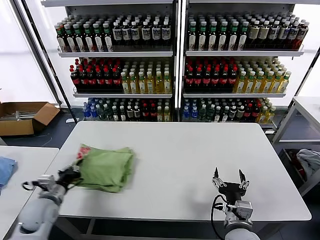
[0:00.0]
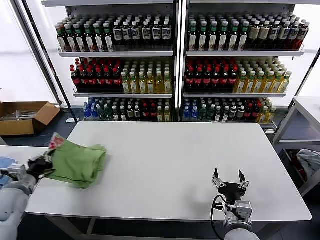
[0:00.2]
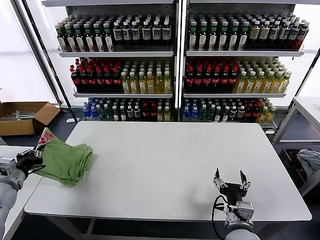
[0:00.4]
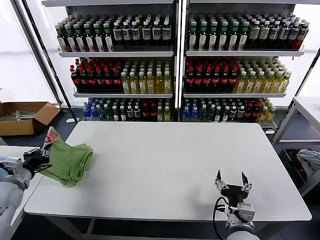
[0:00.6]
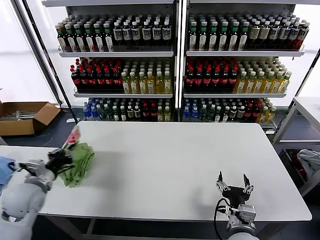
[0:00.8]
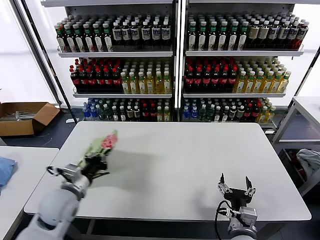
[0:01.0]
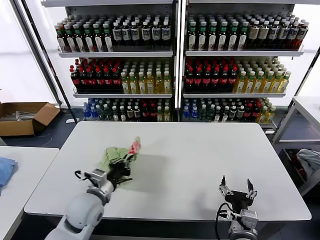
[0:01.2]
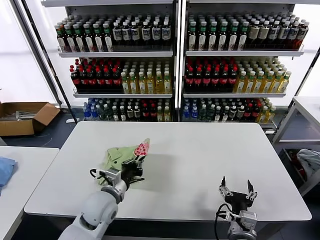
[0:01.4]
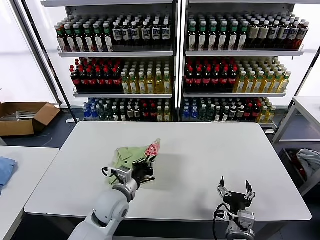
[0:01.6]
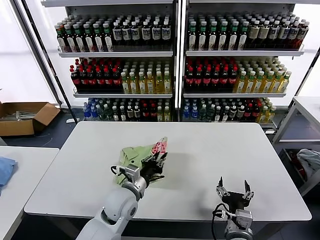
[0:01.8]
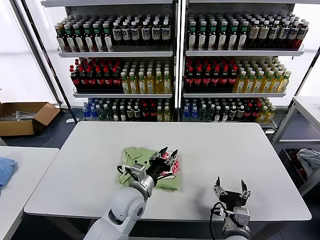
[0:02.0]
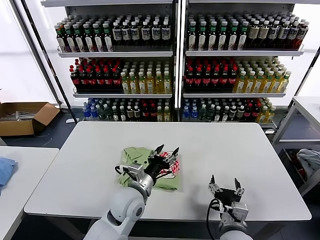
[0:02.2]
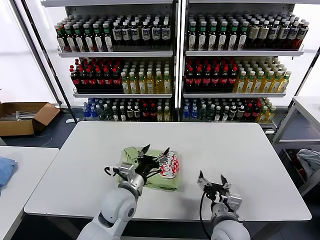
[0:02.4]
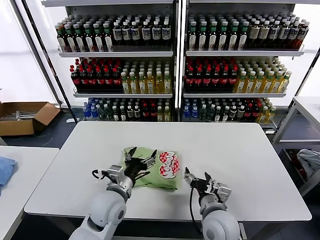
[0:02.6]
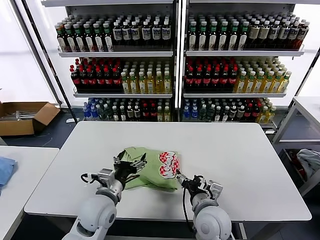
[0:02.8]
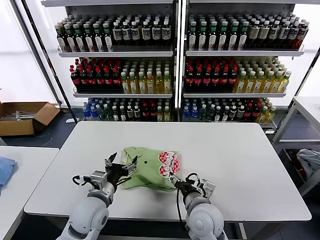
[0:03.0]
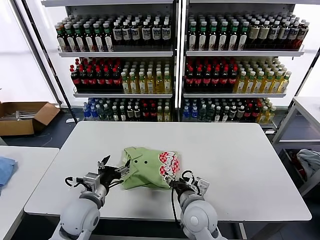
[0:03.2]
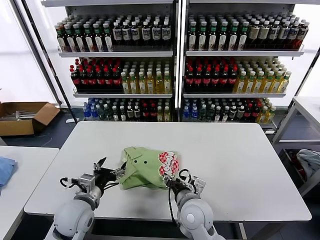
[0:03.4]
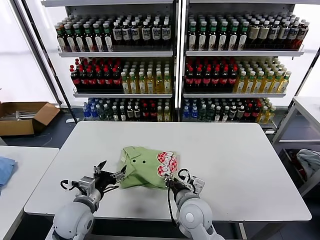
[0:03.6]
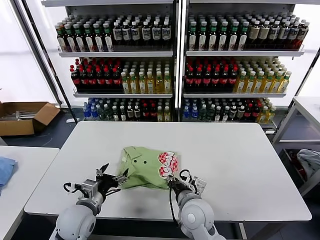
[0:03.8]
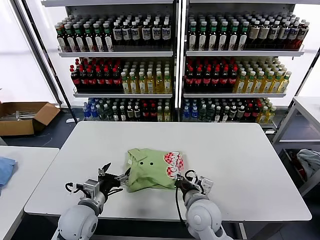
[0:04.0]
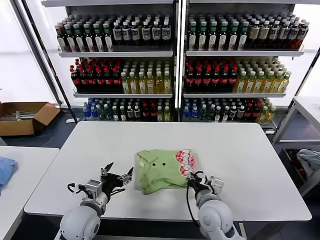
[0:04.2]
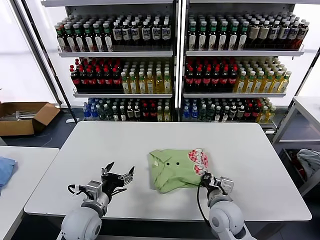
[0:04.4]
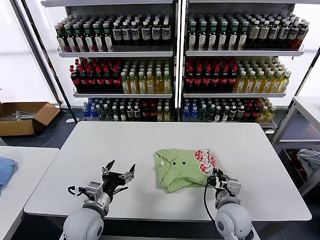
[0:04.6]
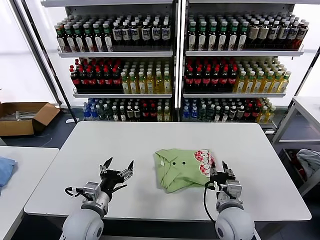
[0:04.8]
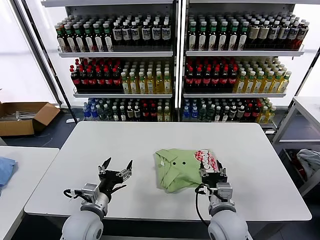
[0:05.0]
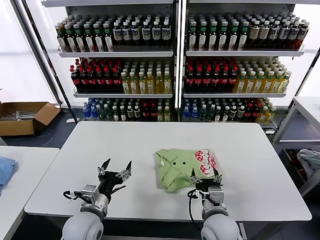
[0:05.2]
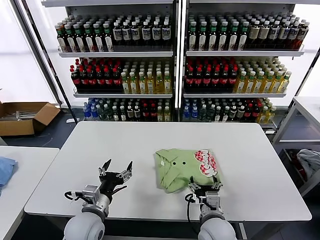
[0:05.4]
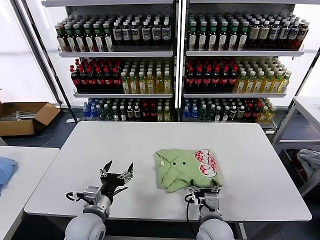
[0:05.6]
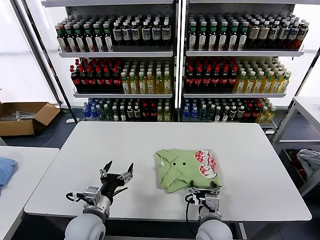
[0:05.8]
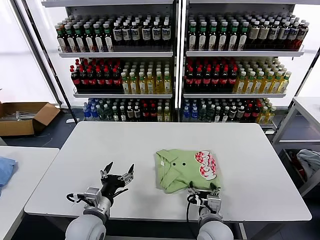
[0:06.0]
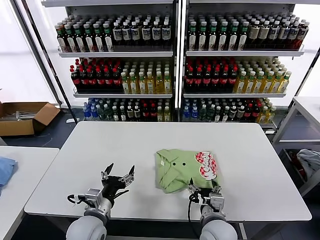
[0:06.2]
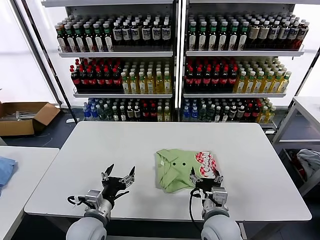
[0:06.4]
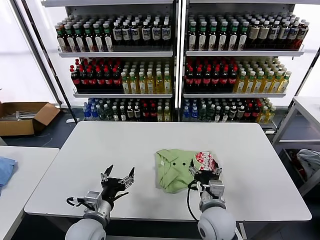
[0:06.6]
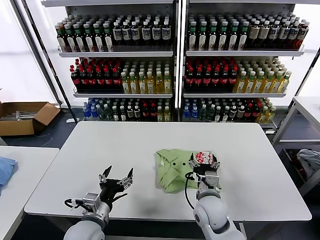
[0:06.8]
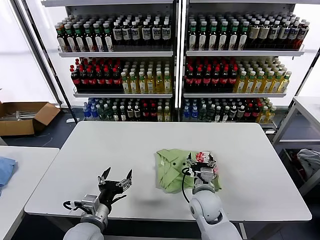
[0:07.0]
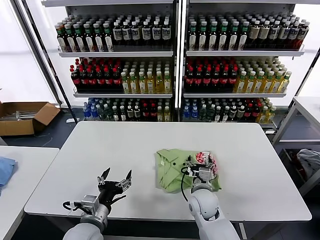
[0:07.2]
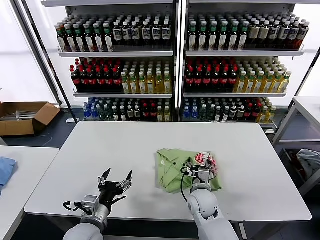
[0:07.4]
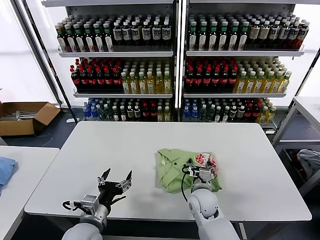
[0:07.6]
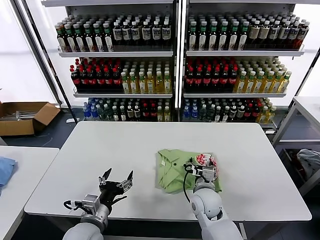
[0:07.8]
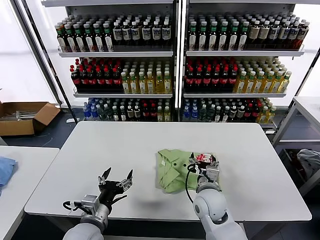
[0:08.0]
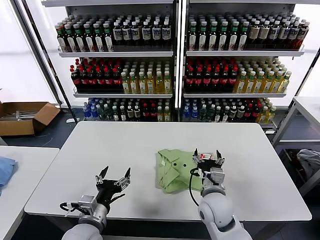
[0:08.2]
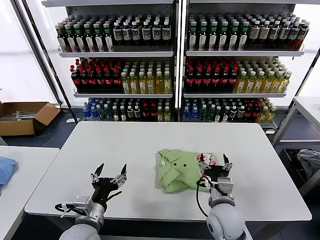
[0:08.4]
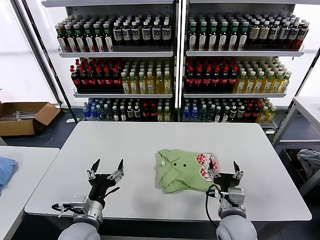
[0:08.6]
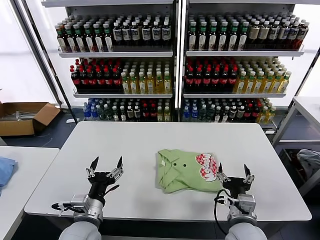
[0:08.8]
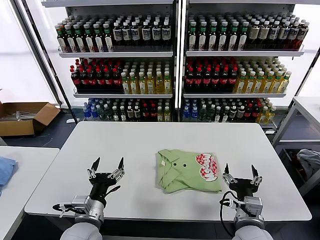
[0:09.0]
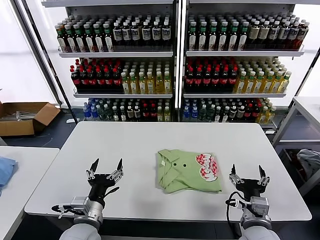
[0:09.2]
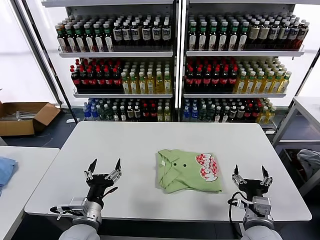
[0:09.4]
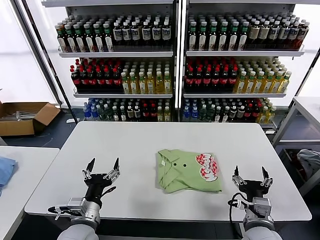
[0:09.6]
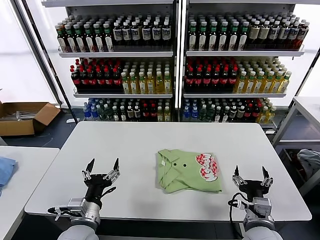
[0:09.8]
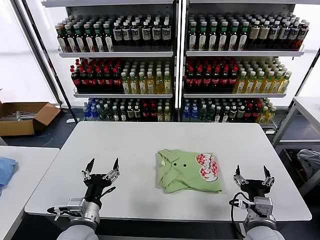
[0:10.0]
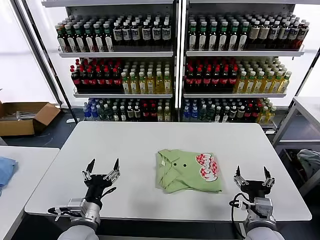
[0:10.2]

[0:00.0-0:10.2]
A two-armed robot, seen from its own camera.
Task of the whole recording: fold and organize the clothes.
Step, 0:00.0 to 0:02.0: Flip the folded clothes over with left gripper.
Step, 0:02.2 to 0:08.0: Drag the clothes to the center of the table.
0:00.0 to 0:01.4: The left gripper is displaced to the right by approximately 15 cm.
0:01.4 to 0:03.0: The right gripper moves to the left and forward, approximately 10 cm, while the left gripper goes to the right and returns, about 10 cm each way, and opens its fingers.
0:03.0 to 0:04.4: The right gripper goes about 5 cm to the right, and closes.
0:04.4 to 0:05.8: The right gripper ends up roughly 5 cm from where it was, and opens its fingers.
0:05.8 to 0:07.2: The right gripper travels forward by roughly 10 cm.
0:07.2 to 0:08.8: The right gripper shifts approximately 15 cm backward, to the right and upward.
0:08.8 to 0:10.2: The right gripper moves about 5 cm.

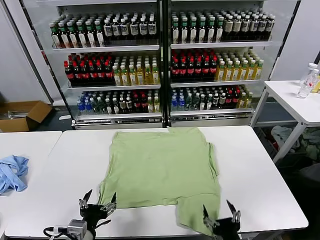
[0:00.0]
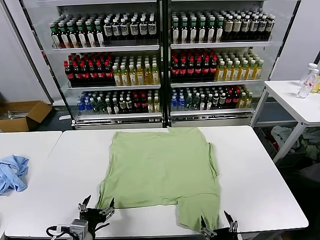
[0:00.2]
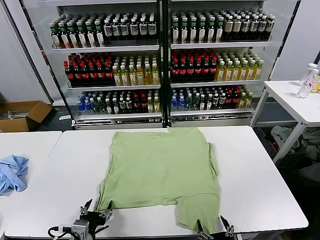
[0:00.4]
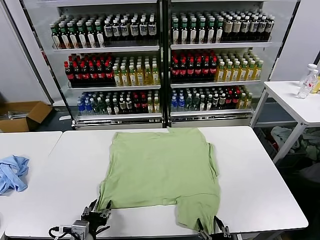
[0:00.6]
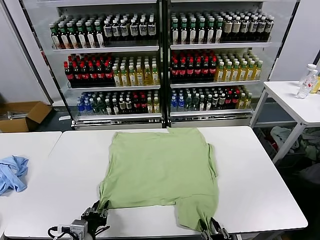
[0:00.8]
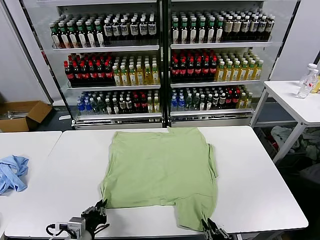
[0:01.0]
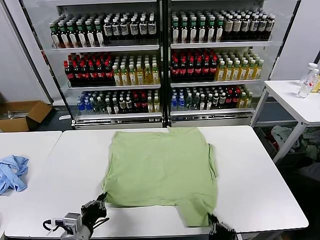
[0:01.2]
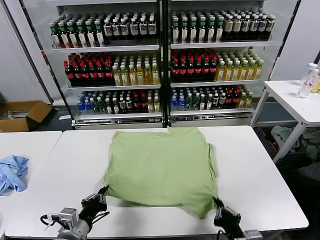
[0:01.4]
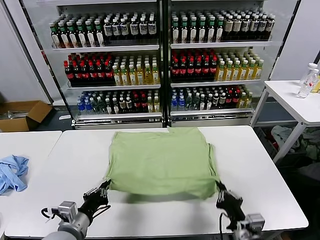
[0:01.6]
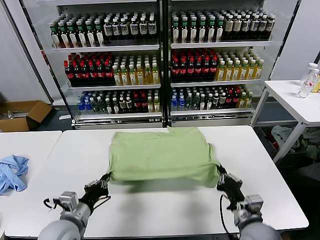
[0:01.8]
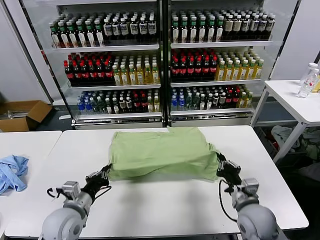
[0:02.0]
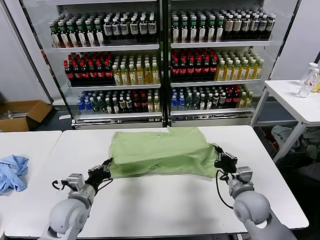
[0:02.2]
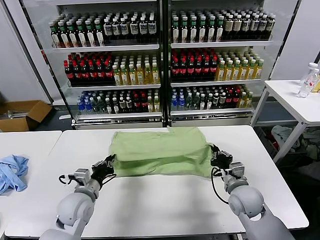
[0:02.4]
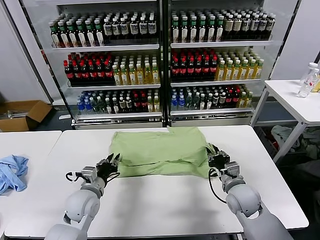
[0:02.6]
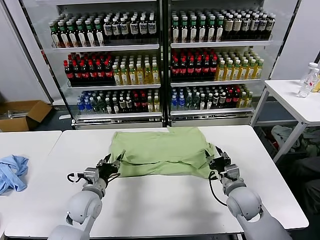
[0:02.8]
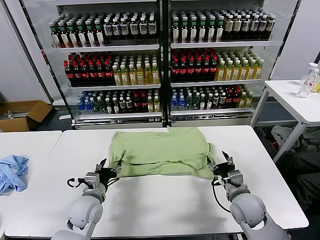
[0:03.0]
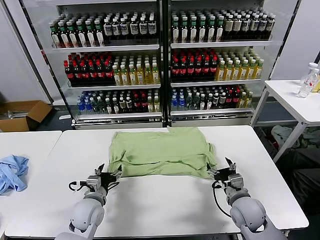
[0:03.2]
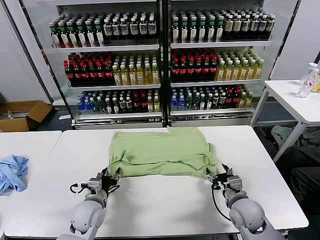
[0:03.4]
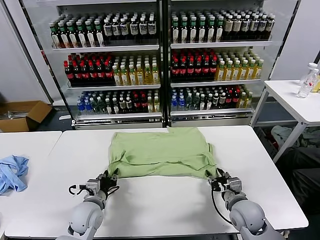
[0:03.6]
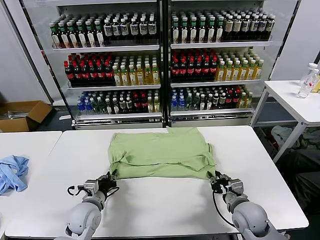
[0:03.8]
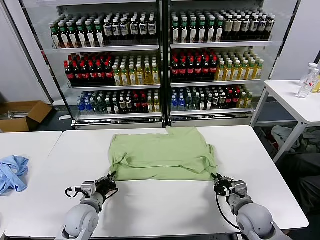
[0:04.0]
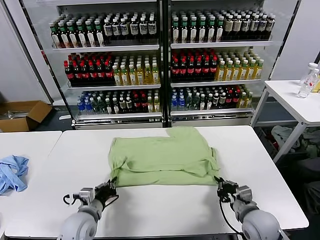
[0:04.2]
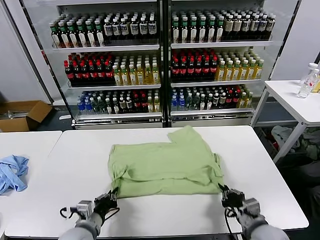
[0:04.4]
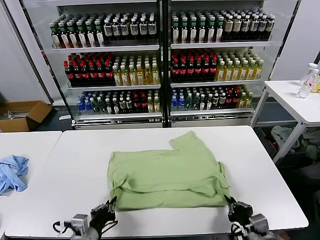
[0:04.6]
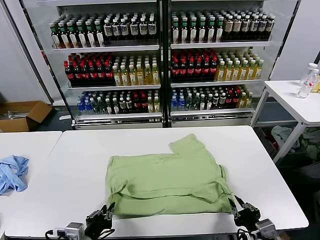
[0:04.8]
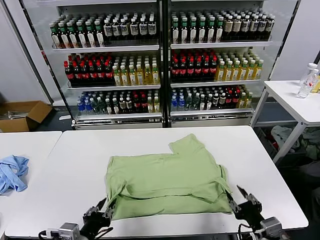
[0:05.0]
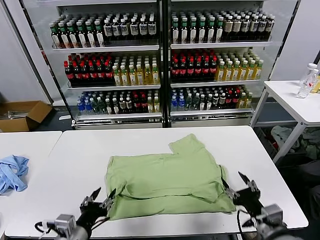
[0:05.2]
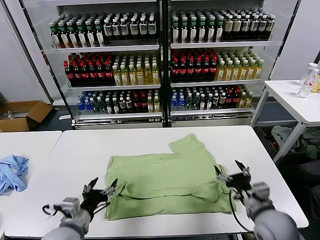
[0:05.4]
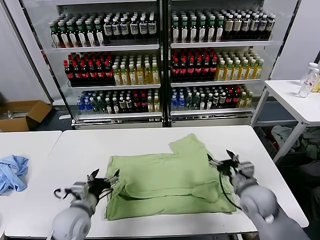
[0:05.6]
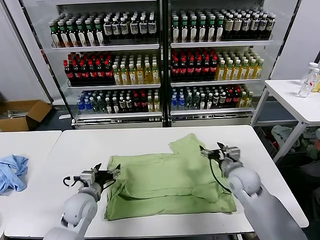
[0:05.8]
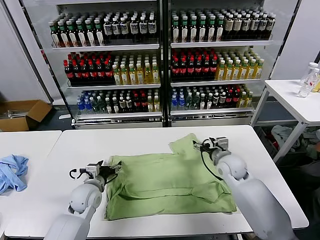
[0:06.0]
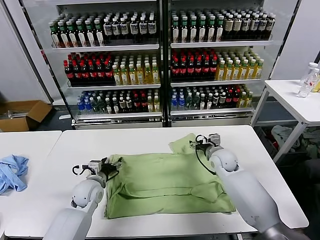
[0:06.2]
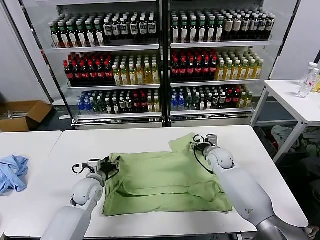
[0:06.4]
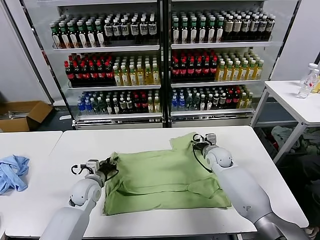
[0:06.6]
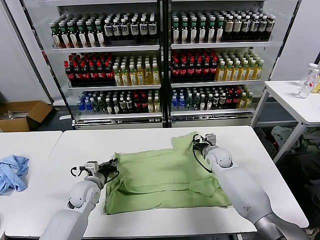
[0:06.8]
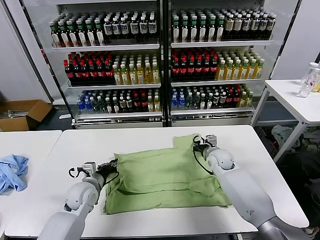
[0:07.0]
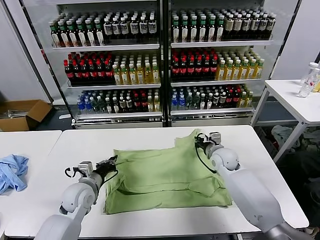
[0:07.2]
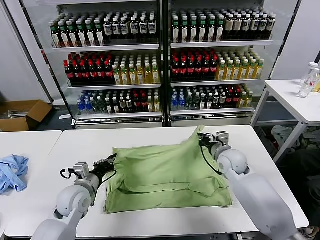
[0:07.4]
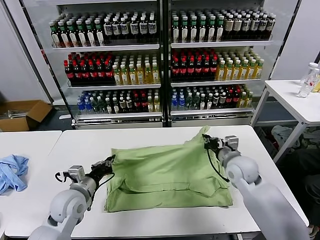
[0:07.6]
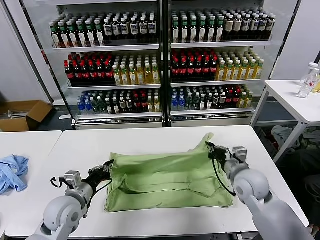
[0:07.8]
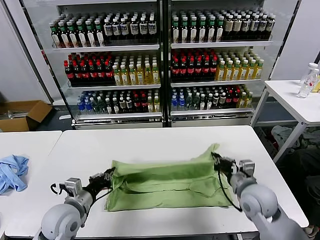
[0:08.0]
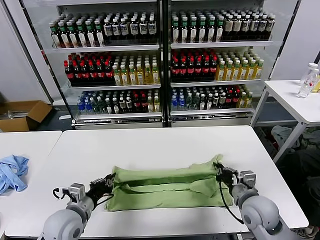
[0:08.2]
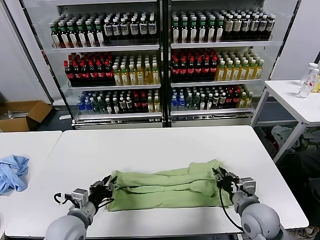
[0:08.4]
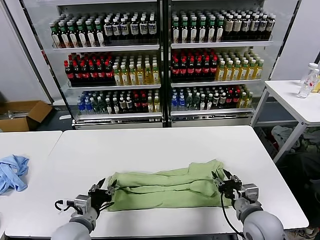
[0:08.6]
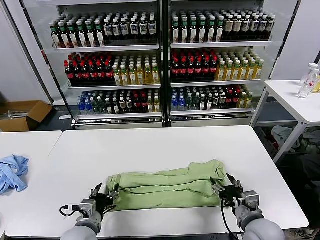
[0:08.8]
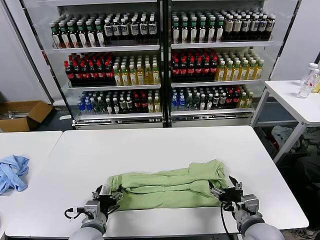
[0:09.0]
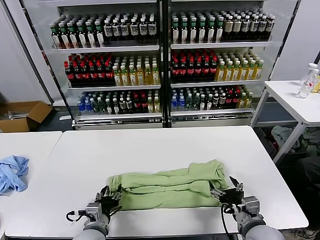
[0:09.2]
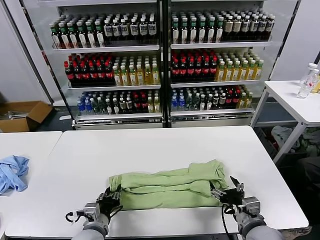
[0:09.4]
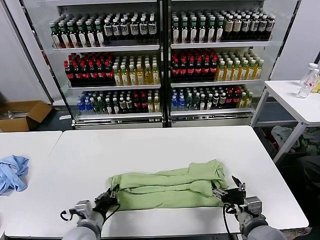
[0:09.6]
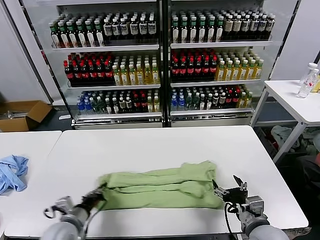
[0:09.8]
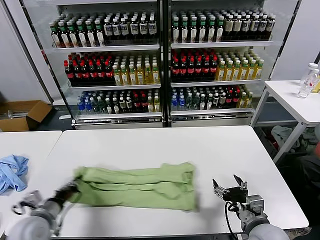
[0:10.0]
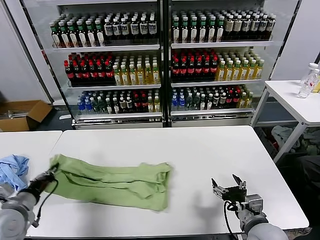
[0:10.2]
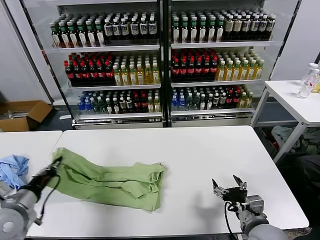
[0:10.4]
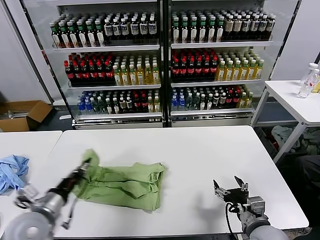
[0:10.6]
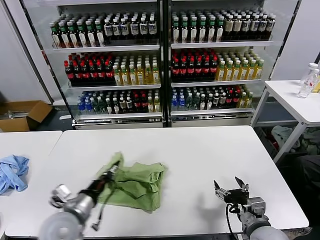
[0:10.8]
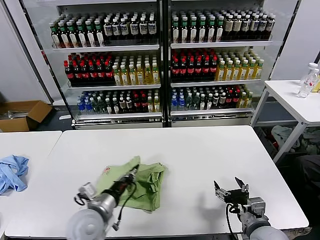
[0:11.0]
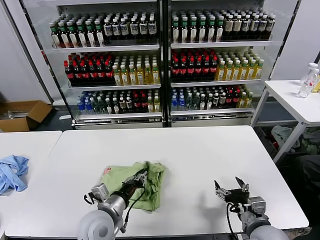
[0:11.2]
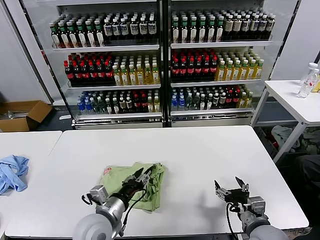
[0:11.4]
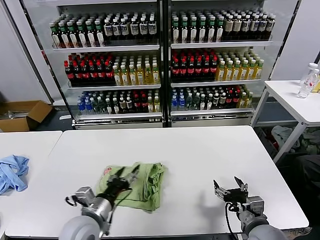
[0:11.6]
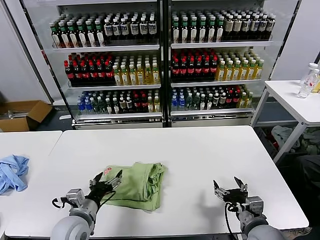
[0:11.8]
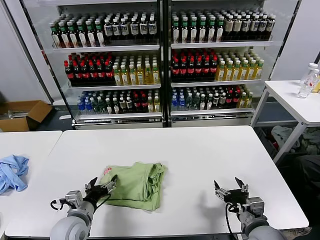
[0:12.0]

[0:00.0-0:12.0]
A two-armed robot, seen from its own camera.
Task of the whole recording: fold and organize the clothes.
Step, 0:00.0 to 0:01.0: use both grippers simultaneously to clamp the lower edge of the clothing fabric.
Step, 0:01.4 to 0:02.8: use both grippers to drag the lower edge of the fabric forward and fold it over the upper edge.
Step, 0:03.0 to 0:04.8: Drag the clothes downward with both gripper.
Step, 0:05.2 to 0:07.0: use both grippers simultaneously to clamp the upper edge of the clothing fabric.
Step, 0:07.2 to 0:08.4: use both grippers to drag the upper edge of the fabric backward and fold it over the lower edge.
Step, 0:08.8 to 0:09.6: use the left gripper to clamp the left edge of the fabric.
Step, 0:10.0 to 0:11.2: use the left gripper to drag the left edge of the fabric to the left and folds it over the right edge.
0:01.6 to 0:03.0: The left gripper shifts roughly 15 cm forward and downward, and opens. Meanwhile the right gripper goes roughly 10 cm forward, and opens up.
0:03.0 to 0:04.4: The grippers both shift backward by approximately 10 cm. The left gripper closes. The right gripper closes.
0:04.4 to 0:06.0: The right gripper moves forward, roughly 30 cm, and opens its fingers; the left gripper goes approximately 15 cm forward, and opens its fingers.
0:06.0 to 0:07.6: The right gripper shifts about 10 cm backward, and closes its fingers; the left gripper travels upward by some 5 cm, and closes.
0:07.6 to 0:09.0: The left gripper goes roughly 15 cm backward, to the right and downward, and opens its fingers, while the right gripper heads backward, covering roughly 15 cm, and opens its fingers.
0:09.0 to 0:10.4: The left gripper shifts roughly 20 cm to the left and upward, and closes up.
0:10.4 to 0:12.0: The left gripper moves to the right and downward, roughly 15 cm, and opens.
